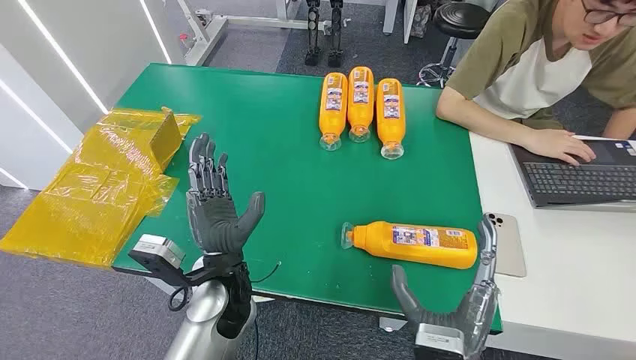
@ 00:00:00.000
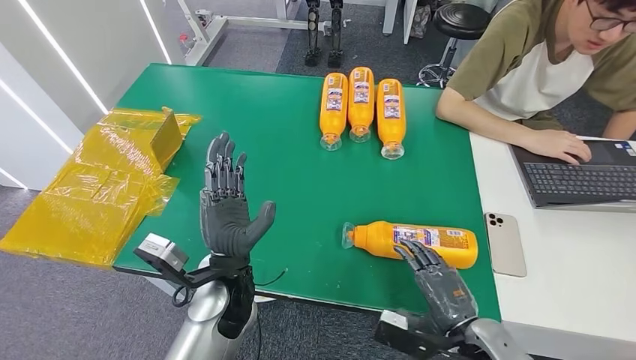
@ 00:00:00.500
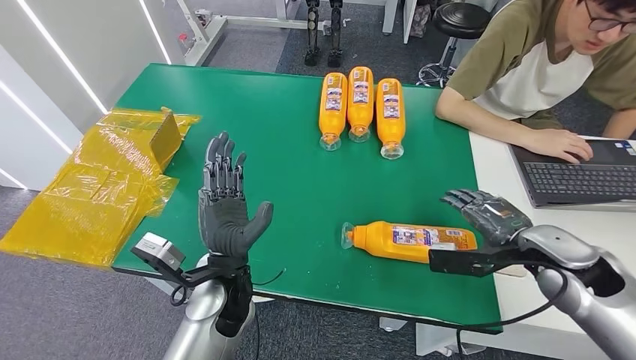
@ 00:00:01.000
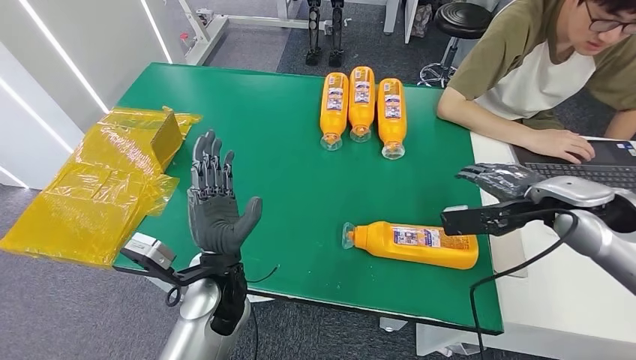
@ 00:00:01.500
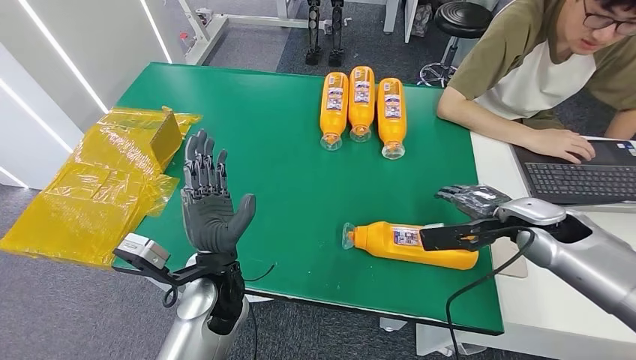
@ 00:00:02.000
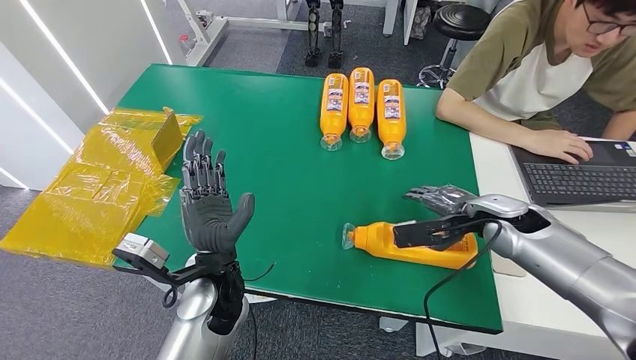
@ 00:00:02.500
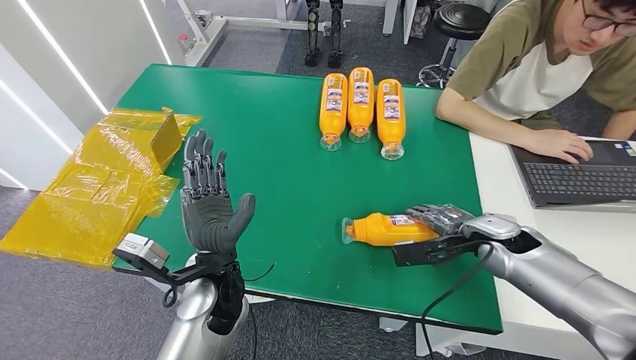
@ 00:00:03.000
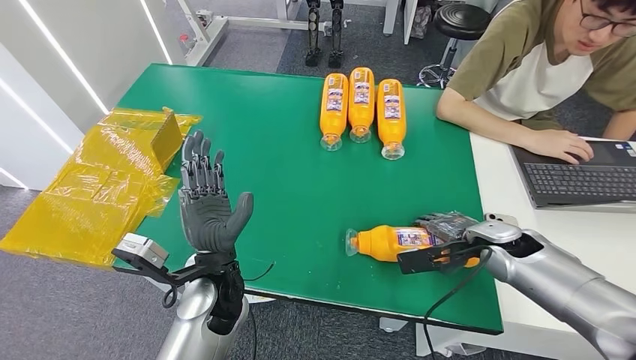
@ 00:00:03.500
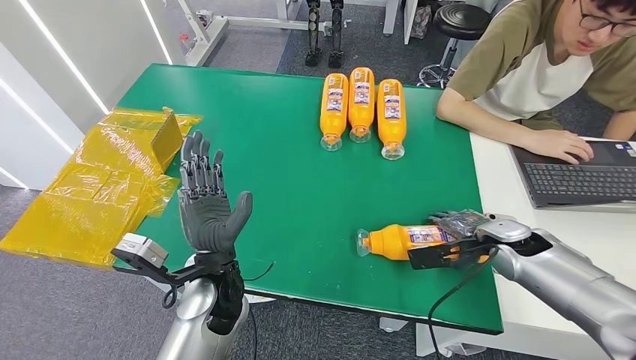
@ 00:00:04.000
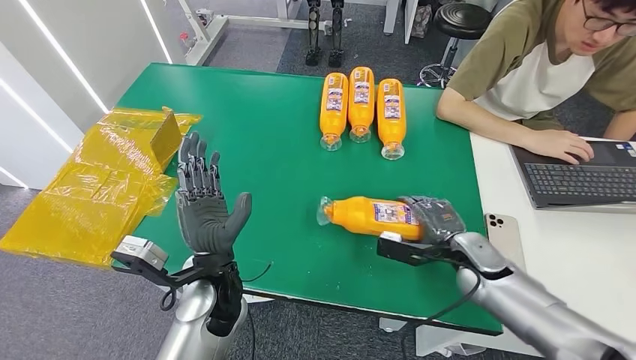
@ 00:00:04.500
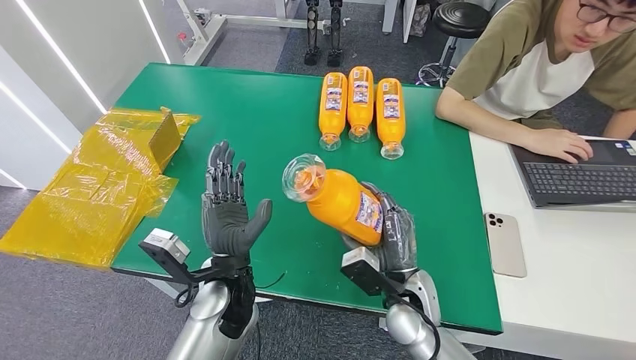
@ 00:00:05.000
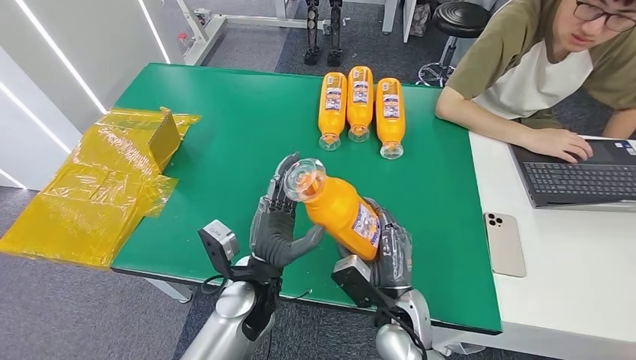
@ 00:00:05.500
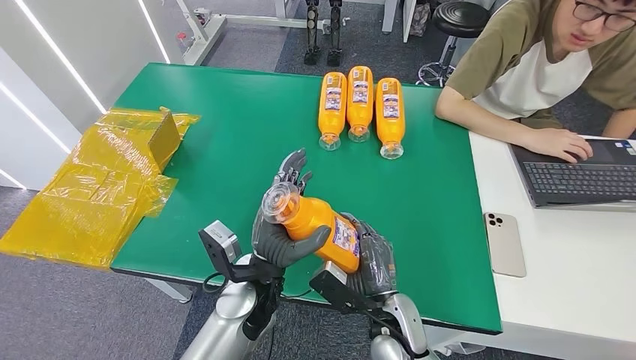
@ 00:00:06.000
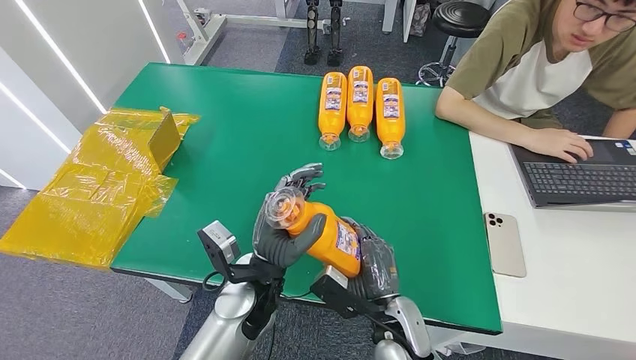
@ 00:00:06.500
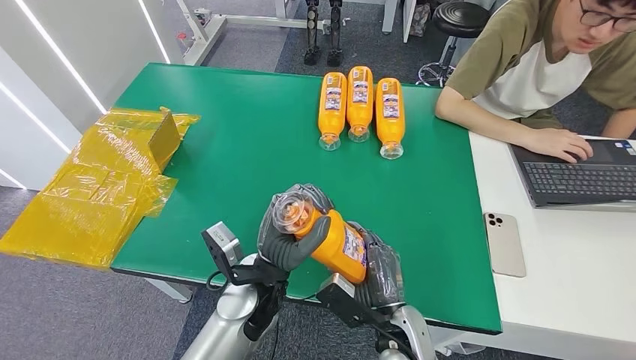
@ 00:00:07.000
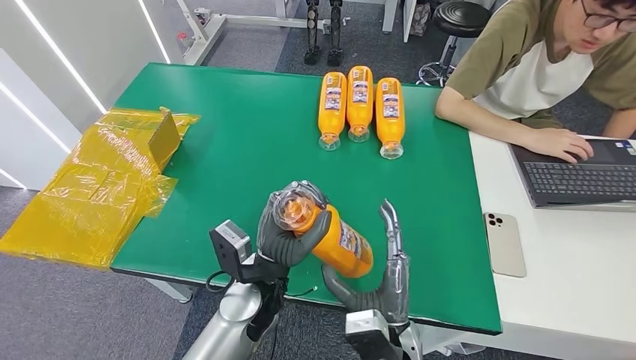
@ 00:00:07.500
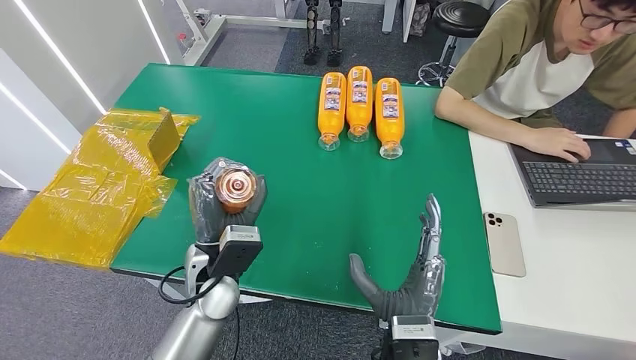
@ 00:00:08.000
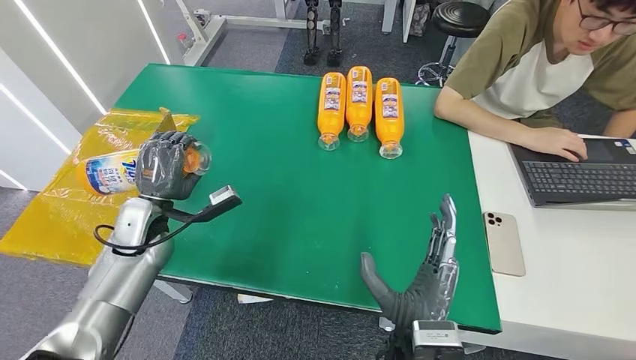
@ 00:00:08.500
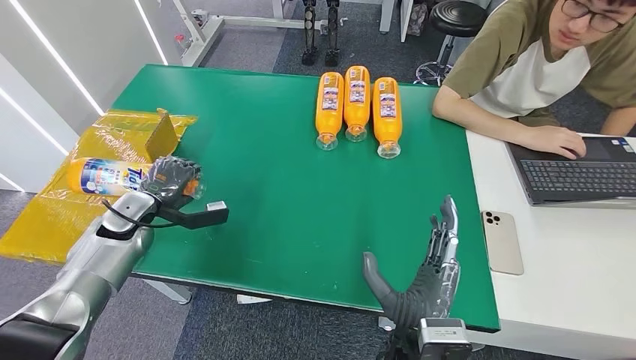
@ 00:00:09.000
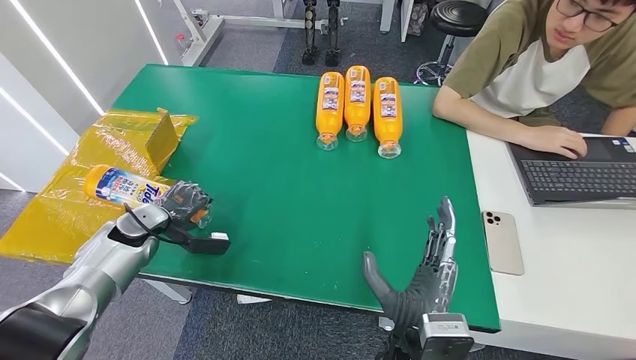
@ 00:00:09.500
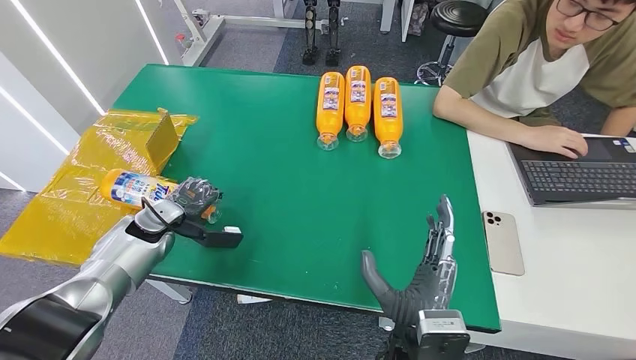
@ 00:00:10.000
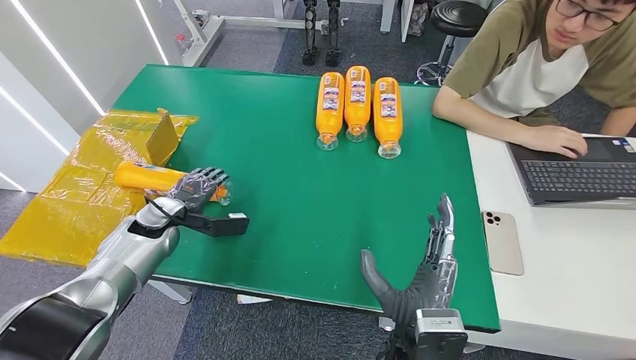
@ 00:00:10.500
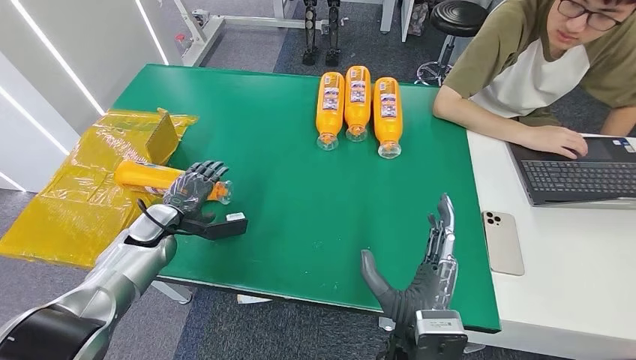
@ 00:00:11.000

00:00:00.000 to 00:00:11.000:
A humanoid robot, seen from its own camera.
Step, 00:00:00.000 to 00:00:04.500: Pick up the bottle from the table.
Step, 00:00:05.500 to 00:00:11.000: Turn the bottle to the front side.
00:00:02.000 to 00:00:03.500: The right hand goes about 5 cm downward.
00:00:05.500 to 00:00:07.500: The right hand heads backward, covering approximately 5 cm.
